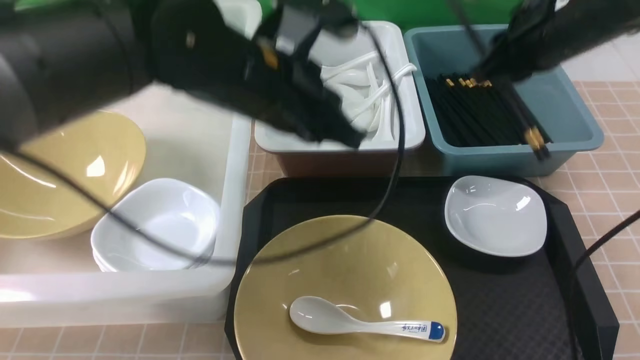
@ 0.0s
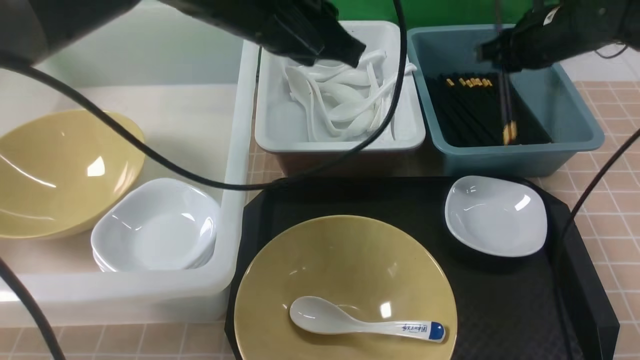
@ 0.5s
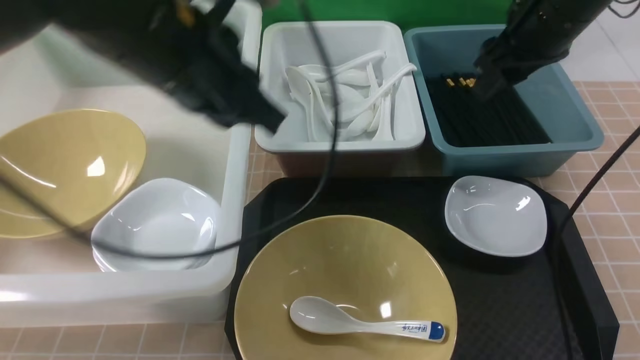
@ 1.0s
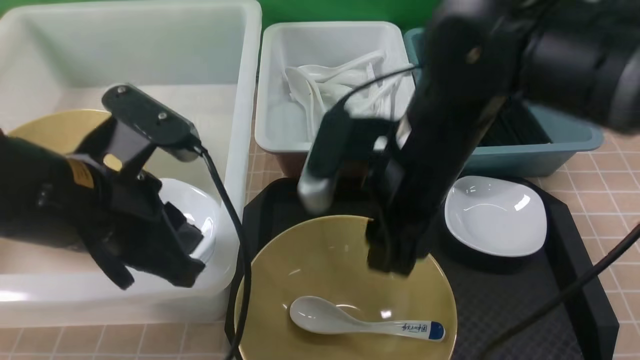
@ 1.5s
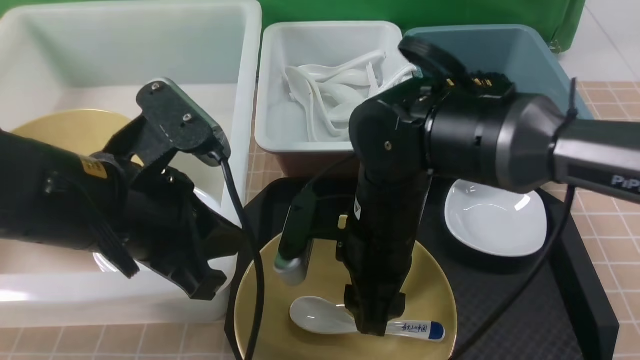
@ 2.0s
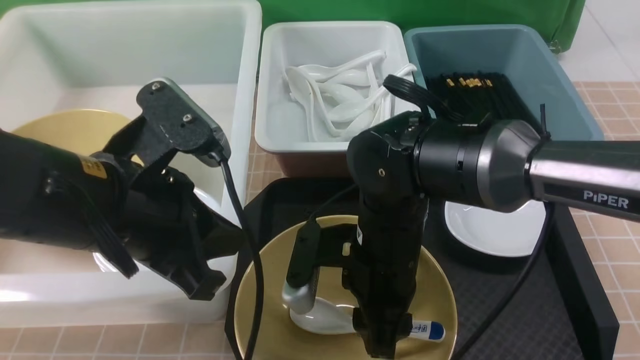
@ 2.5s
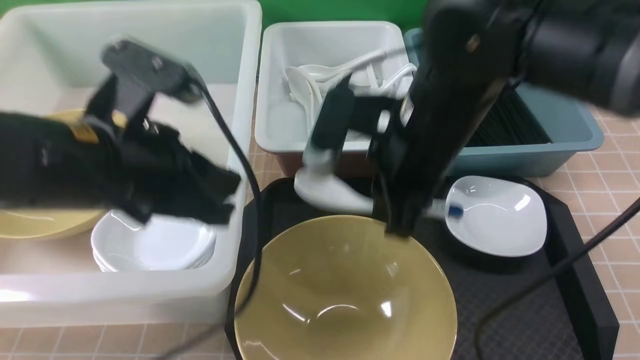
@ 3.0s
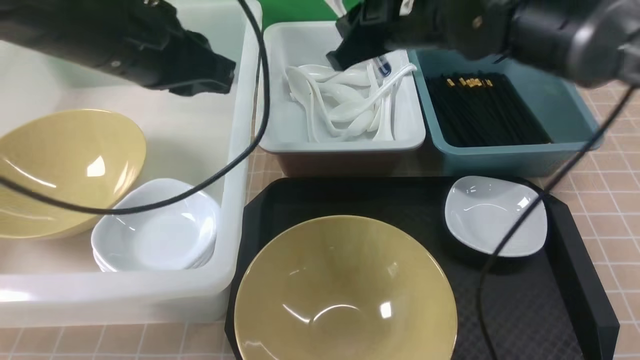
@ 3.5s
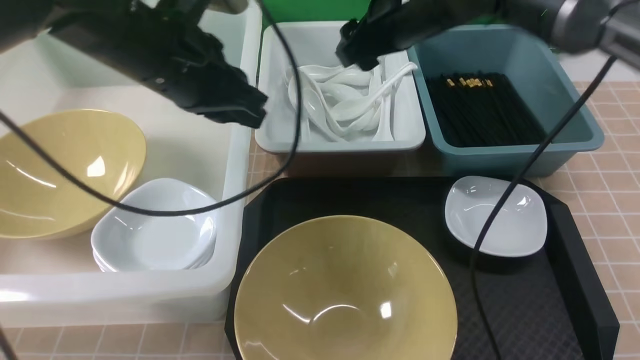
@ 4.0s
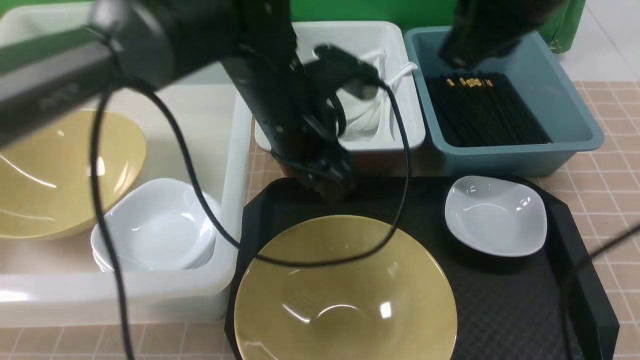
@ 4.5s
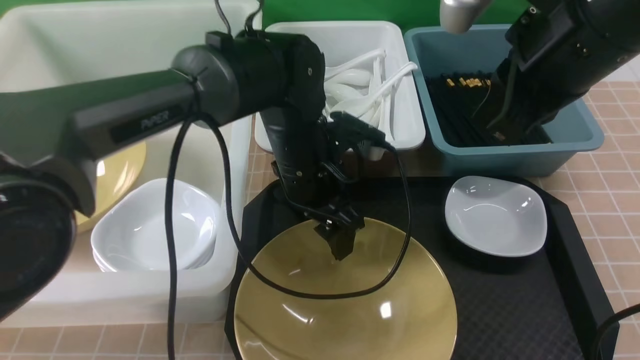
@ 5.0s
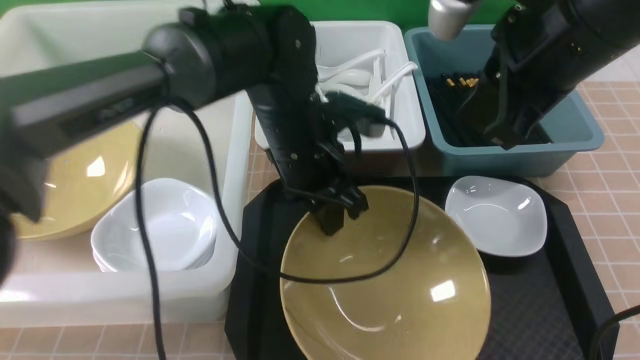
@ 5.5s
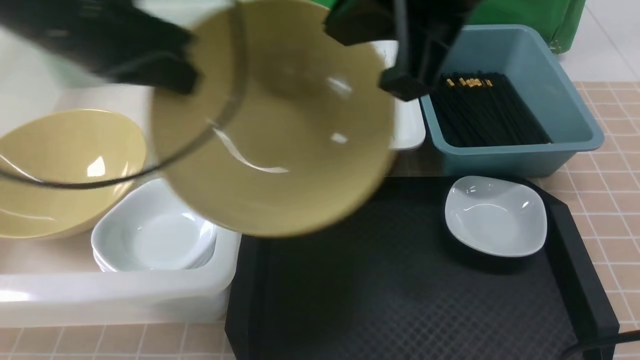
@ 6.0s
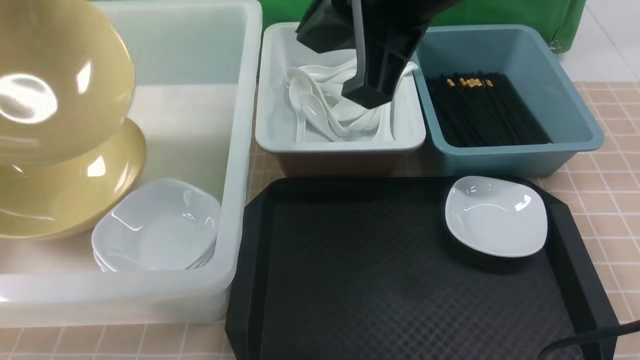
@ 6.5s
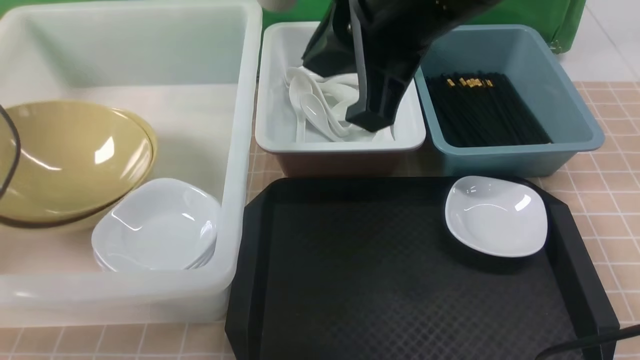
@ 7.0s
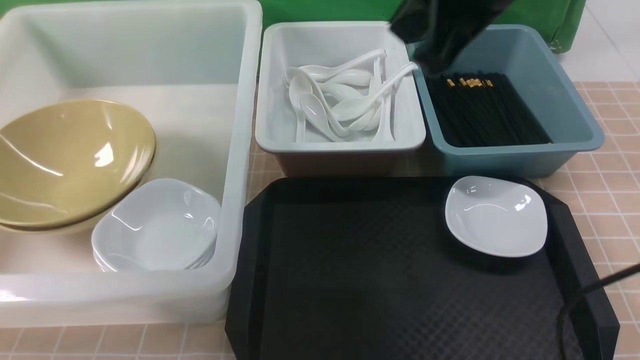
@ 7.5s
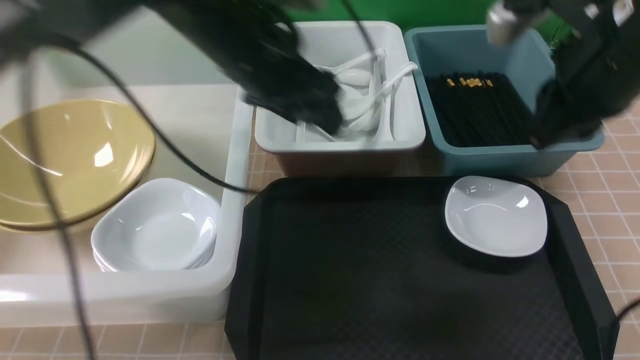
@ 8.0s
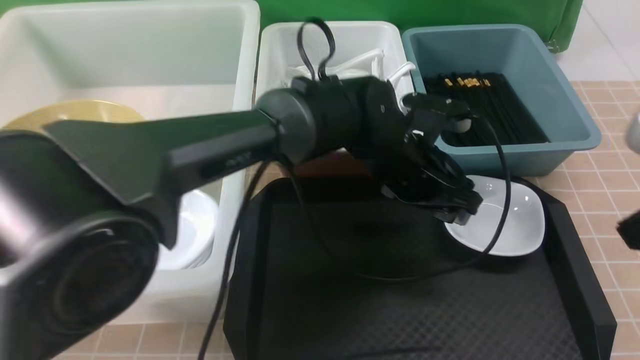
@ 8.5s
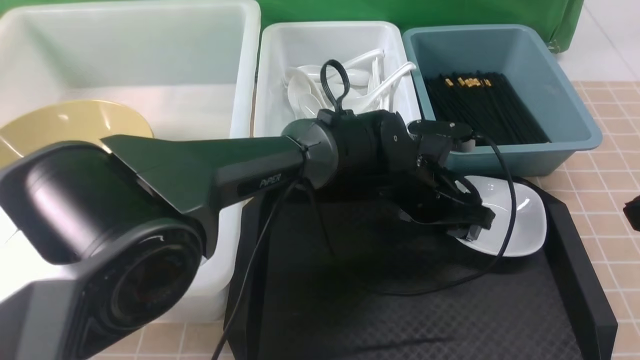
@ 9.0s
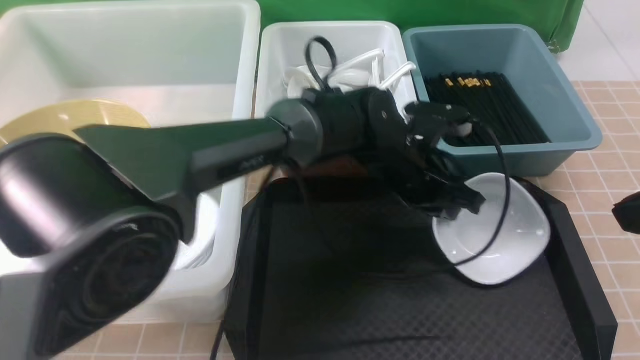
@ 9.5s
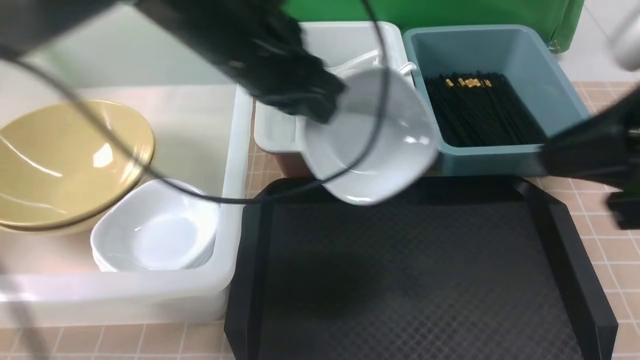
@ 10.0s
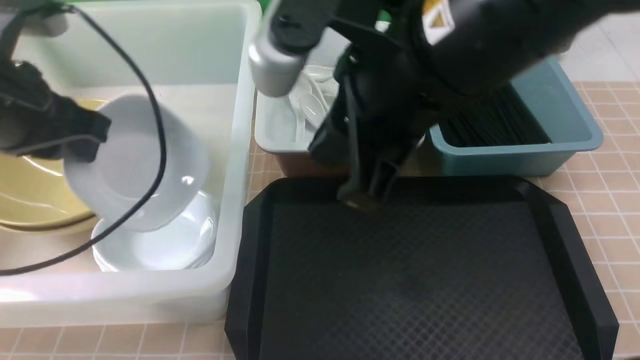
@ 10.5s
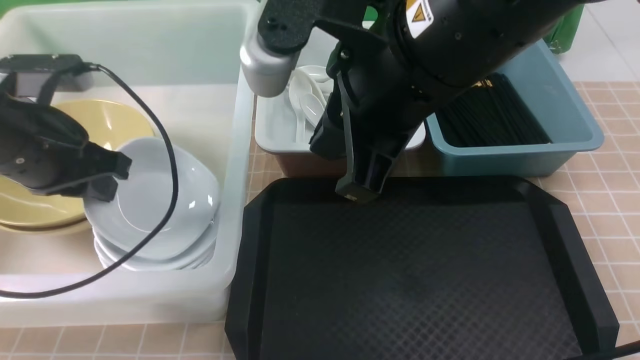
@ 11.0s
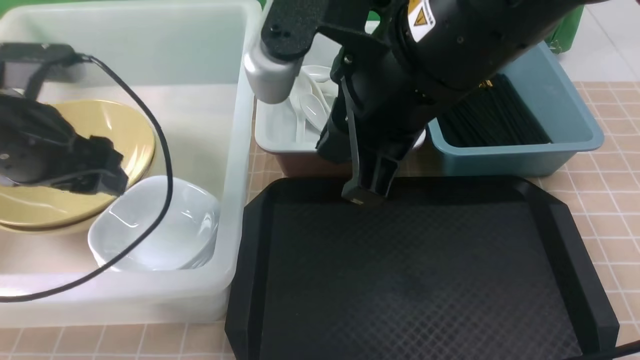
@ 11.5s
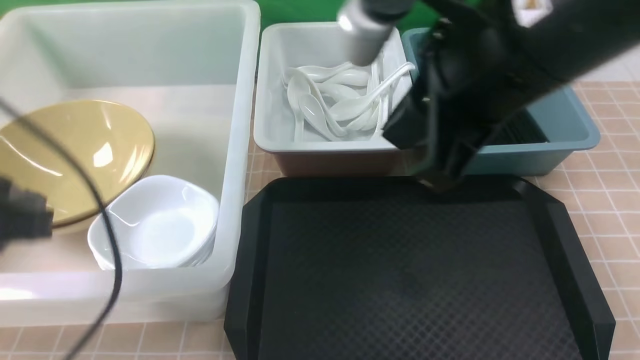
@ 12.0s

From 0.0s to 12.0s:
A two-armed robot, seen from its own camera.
Task of the whole recording: on brown table put chopsticks spoon bowls plates into blue grey white boxes.
Step, from 0.0s to 0.5s: use the right arm to put the chopsticks into the small storage box on the right.
Step, from 1.0s to 2.5s: use the right arm to grab the soup spoon in the middle.
Step, from 3.0s to 3.5s: use the right arm to put the soup spoon into the small storage box in the middle.
Step, from 4.5s to 5.0s: use the left arm to grab the yellow noodle bowl on the left.
Step, from 5.5s to 7.0s: use the left arm to put the noodle bowl into the large storage box on the left.
Step, from 7.5s to 9.0s: use the left arm to grab the plate.
Step, from 9.5s to 11.0s: use the left arm to put the plate into the large storage box on the left.
From 0.0s to 2.0s: The right gripper heads to the left, backward and downward, covering about 25 cm, and opens up, while the left gripper moves backward and to the left, roughly 15 cm.
From 2.0s to 4.0s: The right gripper goes about 20 cm forward and upward, and closes, then reopens. Meanwhile the left gripper moves forward, approximately 15 cm.
From 4.0s to 6.0s: The right gripper goes roughly 25 cm backward and upward, and closes up. Meanwhile the left gripper is displaced to the left and upward by about 10 cm, and opens, then closes again.
From 6.0s to 8.0s: The right gripper is displaced to the right and downward by roughly 15 cm; the left gripper goes approximately 20 cm to the right, downward and forward, and opens its fingers.
From 8.0s to 10.0s: The left gripper goes to the right and returns, roughly 15 cm each way, and closes. Meanwhile the right gripper shifts approximately 10 cm backward.
From 10.0s to 12.0s: The right gripper shifts approximately 10 cm to the left. Meanwhile the left gripper is displaced backward and to the left by about 25 cm, and opens, then closes once more.

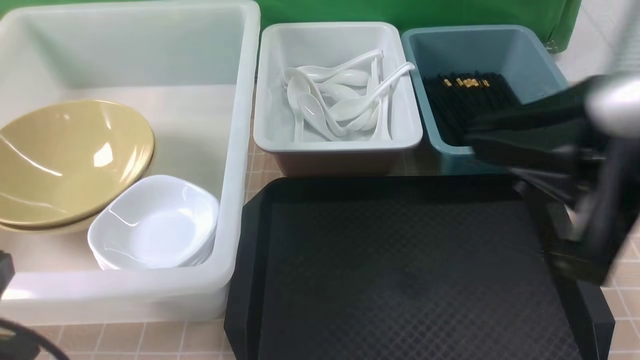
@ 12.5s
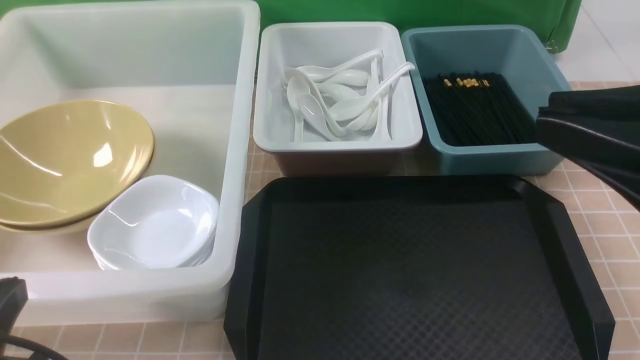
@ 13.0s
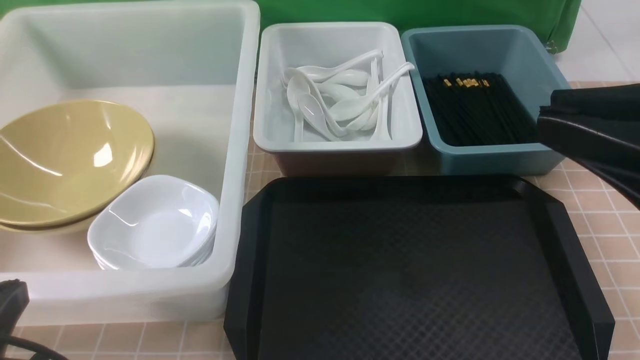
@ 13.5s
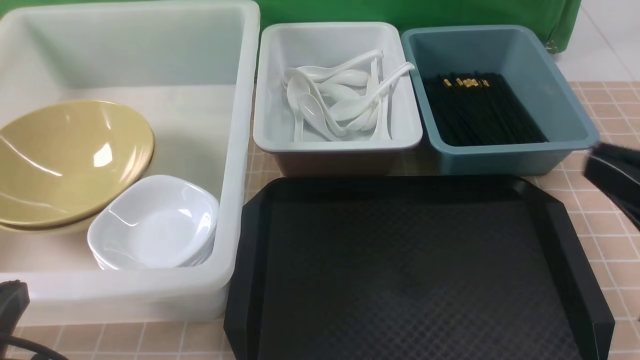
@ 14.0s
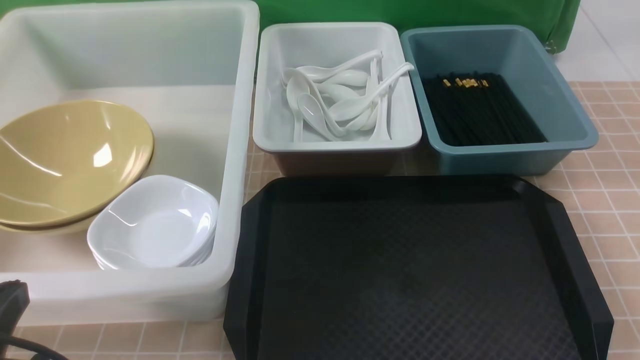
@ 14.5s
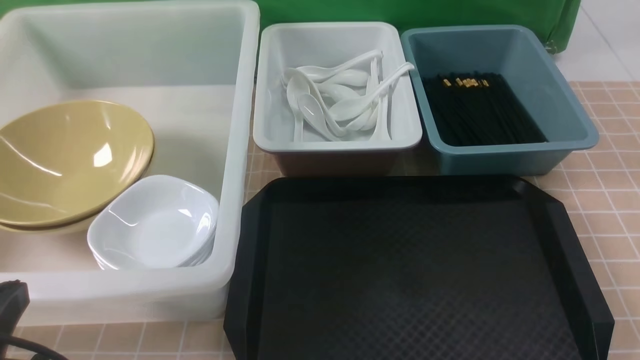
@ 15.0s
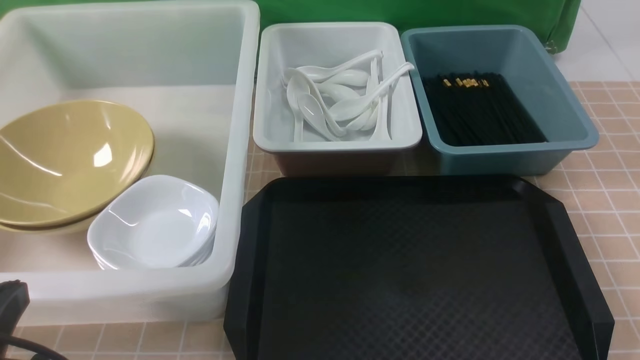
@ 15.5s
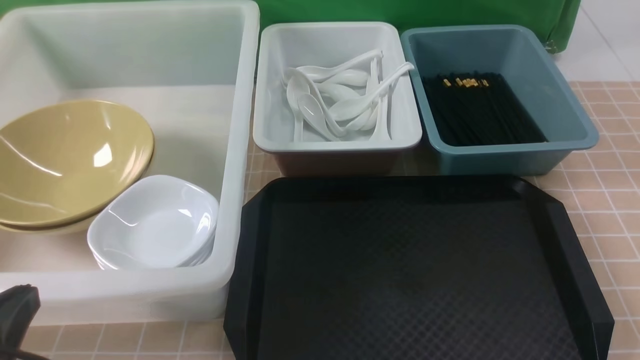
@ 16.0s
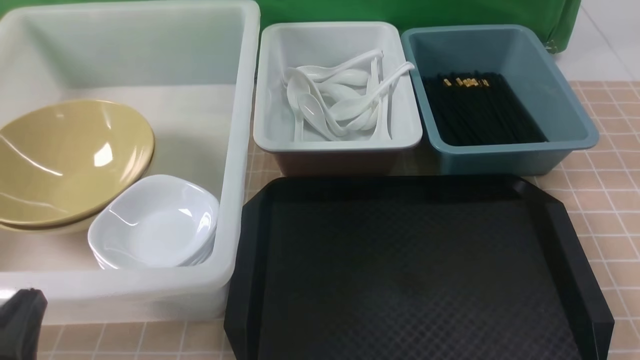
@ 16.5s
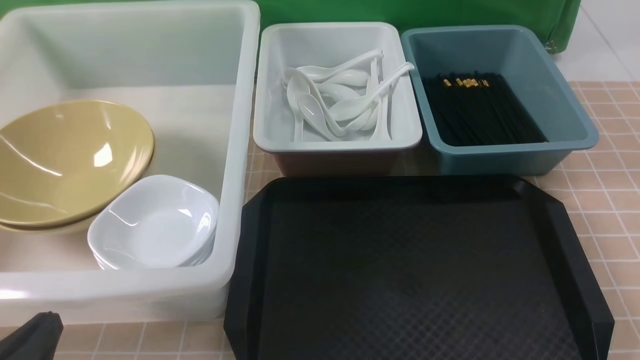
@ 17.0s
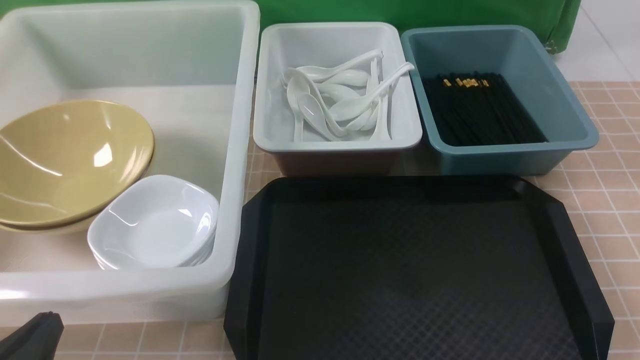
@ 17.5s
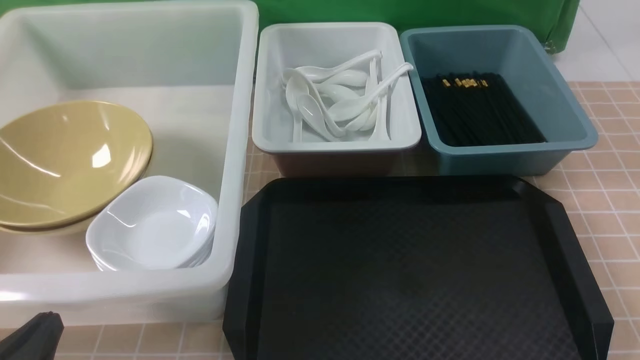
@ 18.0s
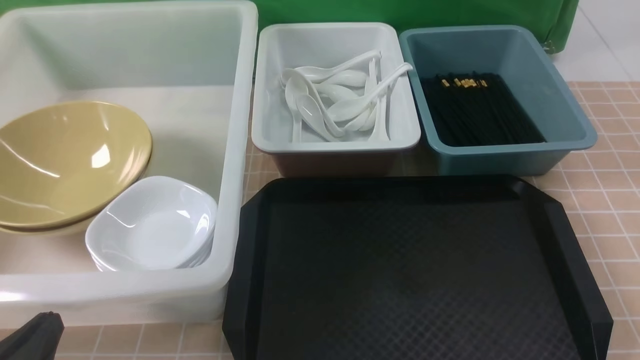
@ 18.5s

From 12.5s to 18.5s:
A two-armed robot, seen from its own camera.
Task of the whole recording: on brown table put chopsticks spoon bowls plates into blue grey white boxes.
From 12.5s to 14.5s: The right gripper moves downward, to the right and backward, some 25 cm.
From 14.5s to 16.5s: The left gripper heads downward, covering roughly 5 cm.
From 16.5s to 18.5s: There are only small adjustments of the grippers.

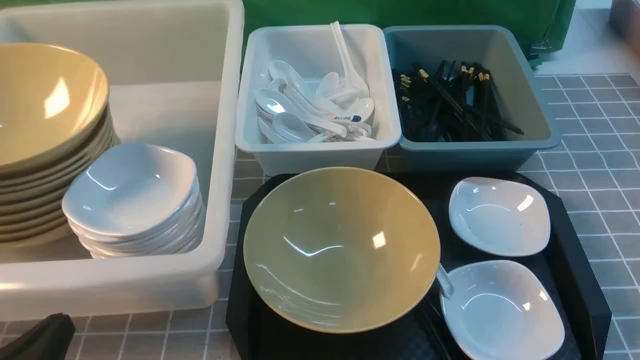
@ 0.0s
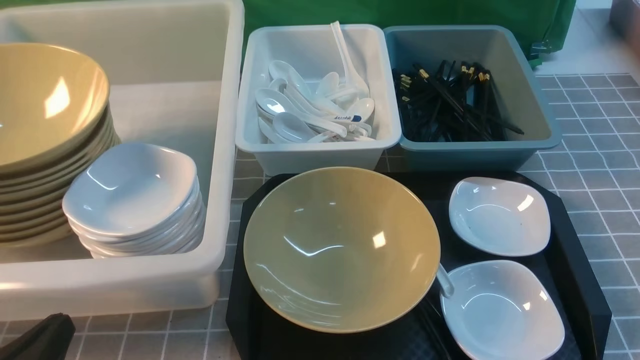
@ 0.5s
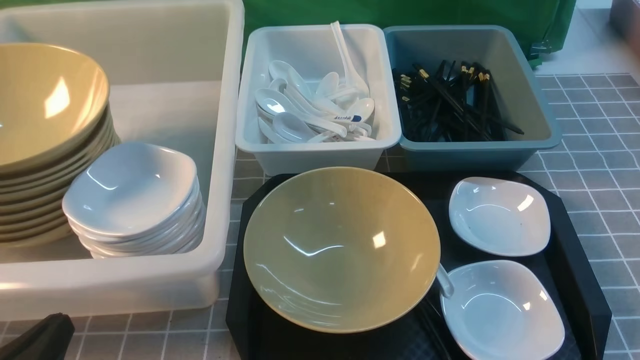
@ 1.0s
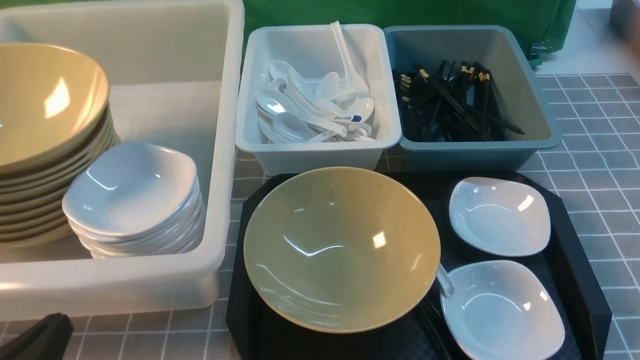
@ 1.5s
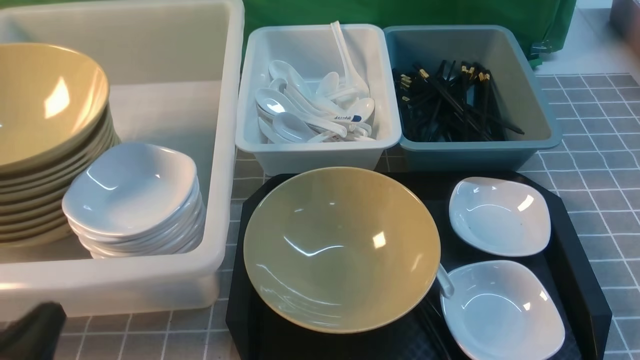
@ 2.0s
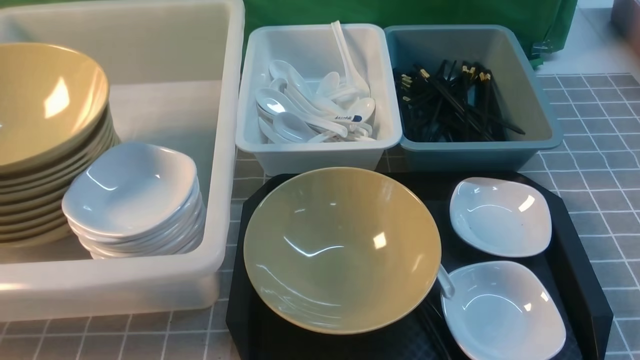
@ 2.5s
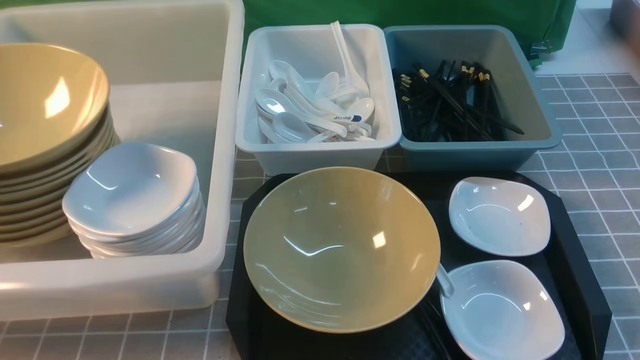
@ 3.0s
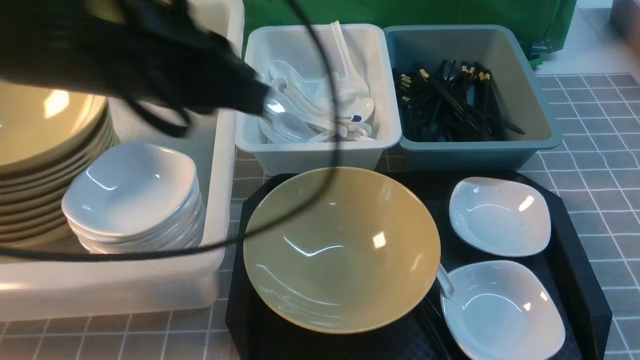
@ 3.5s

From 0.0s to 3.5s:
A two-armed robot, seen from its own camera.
Task of the whole recording: on grey table put chopsticks spoon bowls plates into blue grey white boxes.
From 2.0s to 3.5s: The left gripper travels upward, forward and to the right by about 30 cm; the right gripper heads upward, covering approximately 5 cm.
